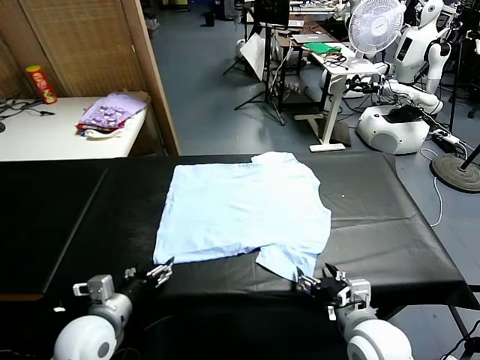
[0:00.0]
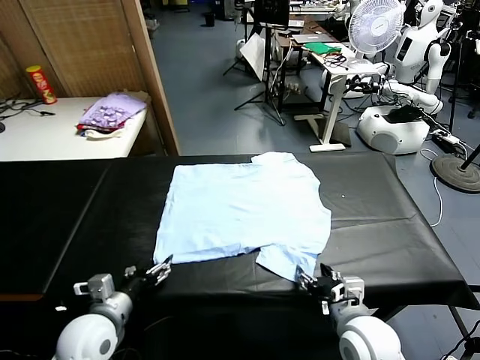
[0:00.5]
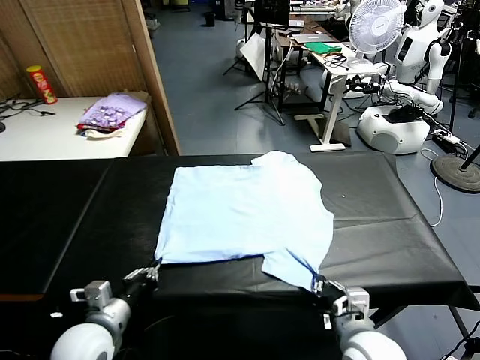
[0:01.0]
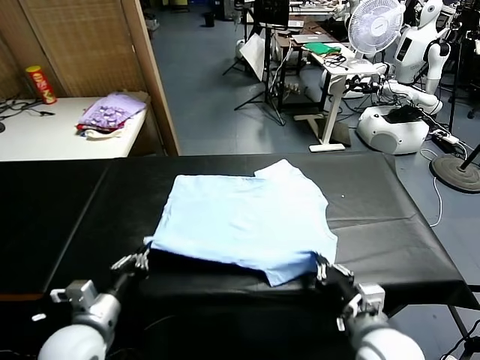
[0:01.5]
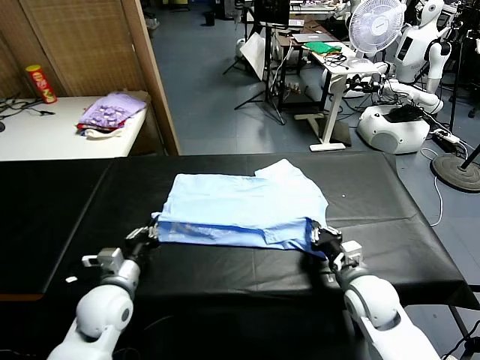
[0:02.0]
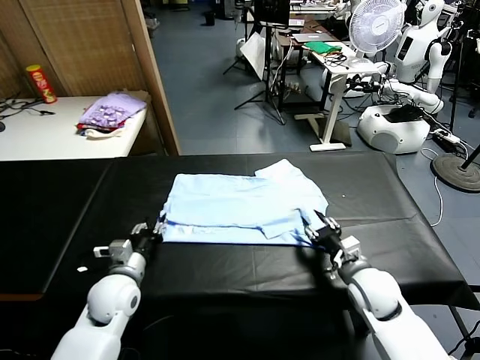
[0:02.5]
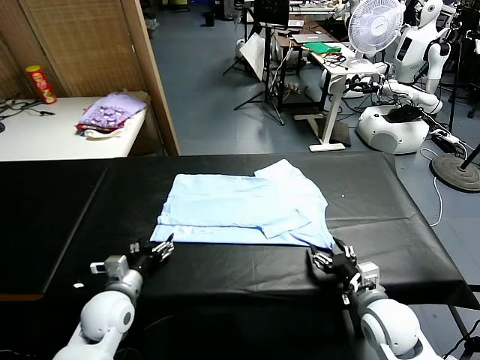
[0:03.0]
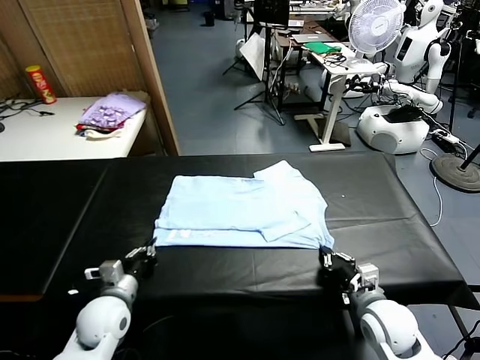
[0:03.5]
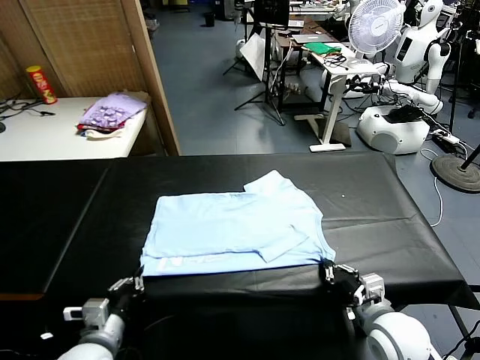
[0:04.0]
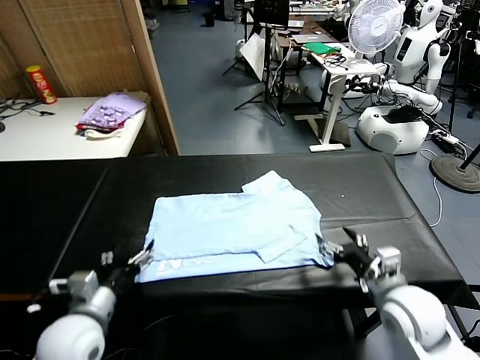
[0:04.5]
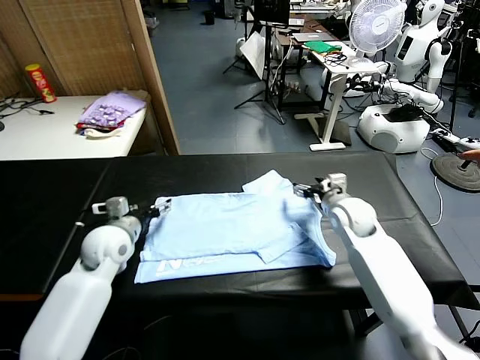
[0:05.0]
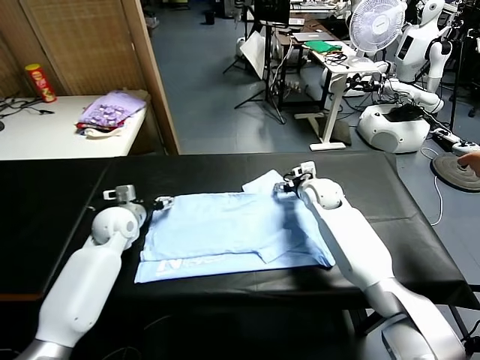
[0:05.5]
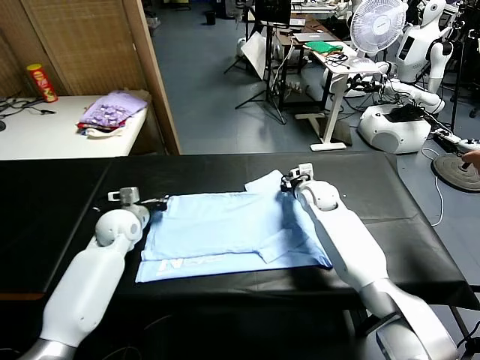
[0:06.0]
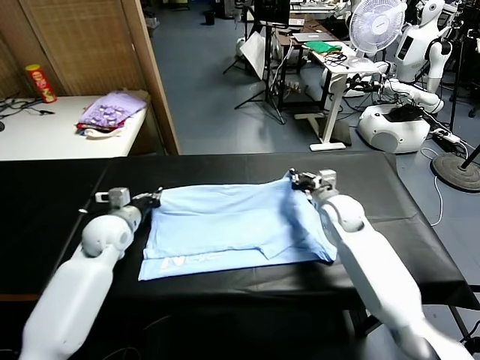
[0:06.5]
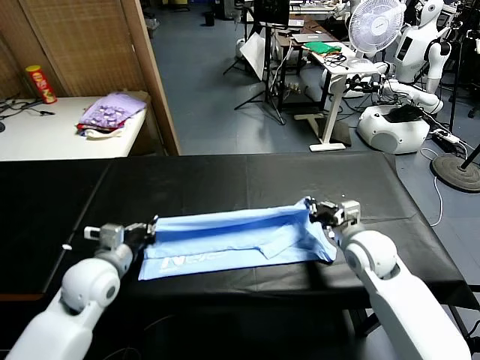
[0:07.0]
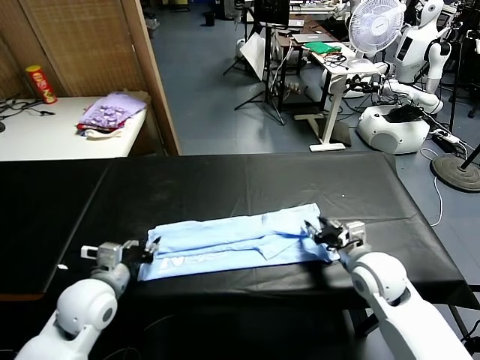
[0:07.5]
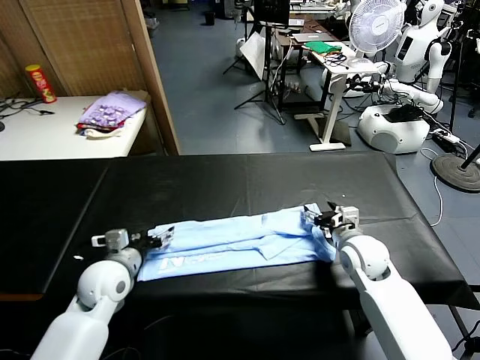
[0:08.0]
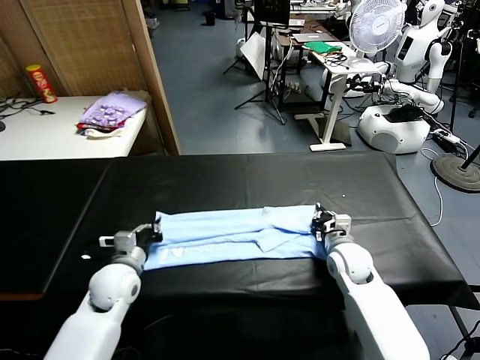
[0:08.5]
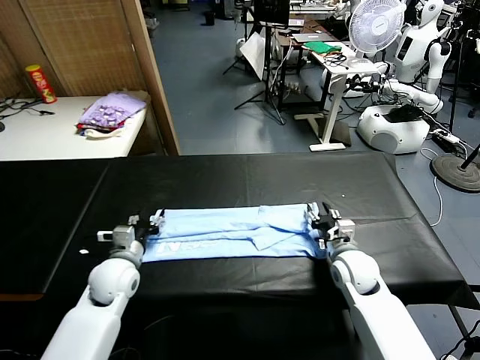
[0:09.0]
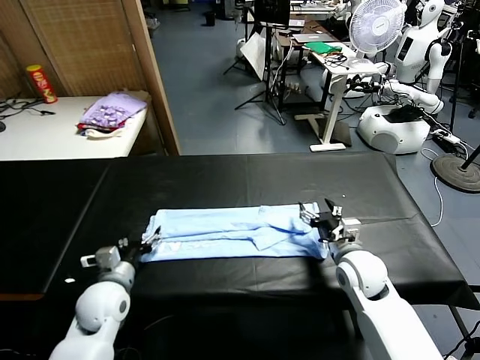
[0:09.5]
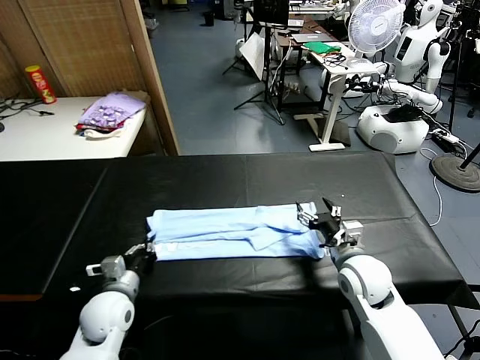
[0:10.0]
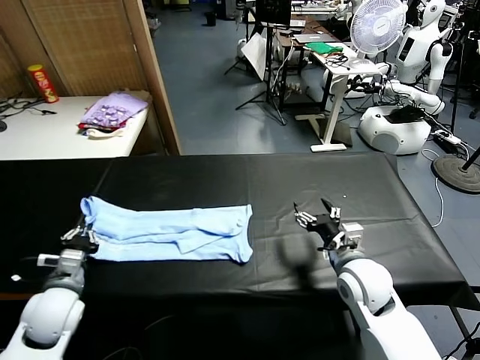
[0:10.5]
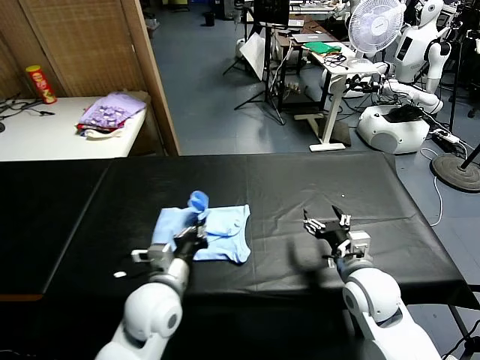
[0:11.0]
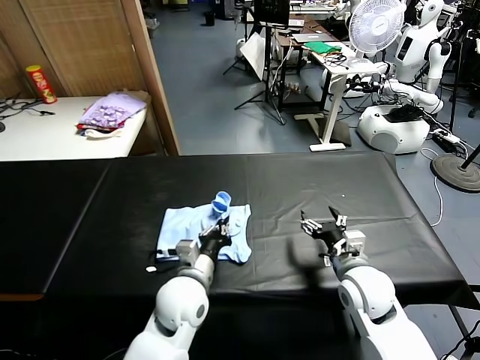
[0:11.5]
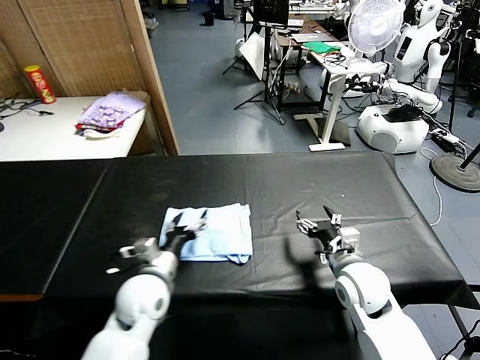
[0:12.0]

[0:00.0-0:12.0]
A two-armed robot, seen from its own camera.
Task of the whole recording: fold and organize the clothes.
Step, 0:00.0 to 0:00.5: use both grippers simultaneously to clamp the lower edge of the clothing fabric.
Step, 0:01.0 to 0:02.0: use both grippers to drag the lower edge of the fabric forward and fold it over the upper edge.
Step, 0:02.5 to 0:04.0: Drag the clothes downward with both gripper.
Step, 0:04.5 to 0:05.5: use both grippers simultaneously to clamp the upper edge of the clothing fabric.
Step, 0:06.5 to 0:07.0: use both grippers to drag the upper edge of the fabric backward and fold it over the lower edge.
Step, 0:07.5 to 0:09.5: use the left gripper to clamp the left edge of the fabric.
Step, 0:10.0 to 0:11.5: use the left gripper to drag the left edge of the fabric to the left and folds it over the right edge.
0:02.0 to 0:04.0: The left gripper is displaced backward by some 15 cm, and opens, then closes again. Meanwhile the right gripper is displaced backward and upward by about 15 cm, and opens its fingers.
0:04.0 to 0:06.0: The two grippers go roughly 30 cm forward. The left gripper opens, then closes again; the right gripper closes.
0:06.0 to 0:08.0: The grippers both shift backward by roughly 15 cm. The left gripper opens. Meanwhile the right gripper opens up.
0:08.0 to 0:10.0: The two grippers go about 5 cm backward. The right gripper opens up. Meanwhile the left gripper closes.
0:10.0 to 0:12.0: The left gripper swings left and right, approximately 25 cm each way, with 2 reversals, and opens up.

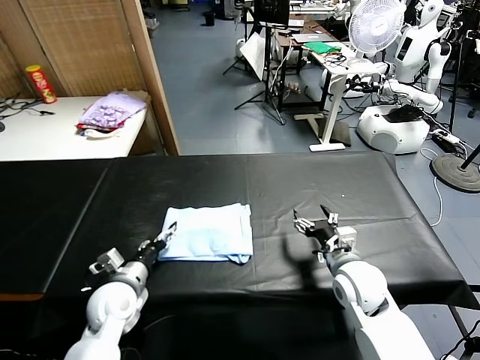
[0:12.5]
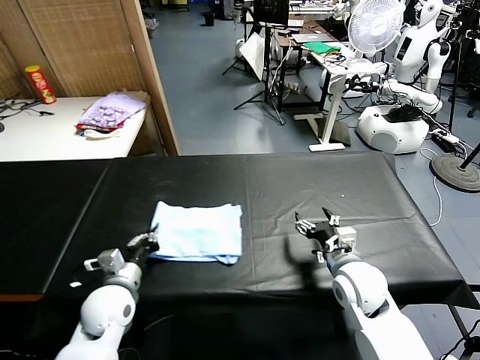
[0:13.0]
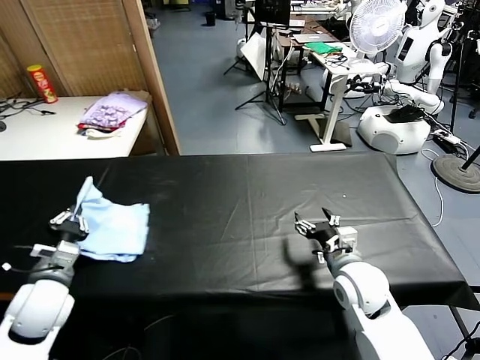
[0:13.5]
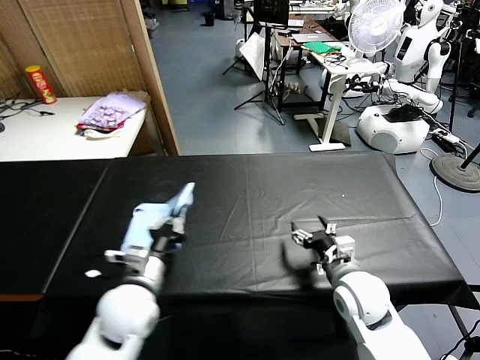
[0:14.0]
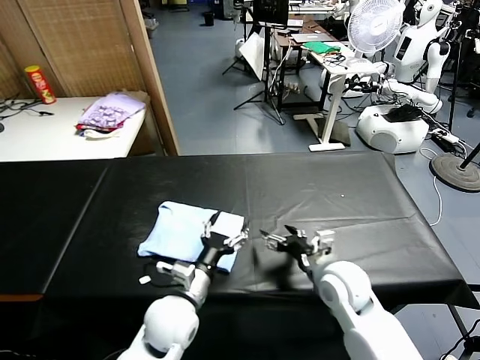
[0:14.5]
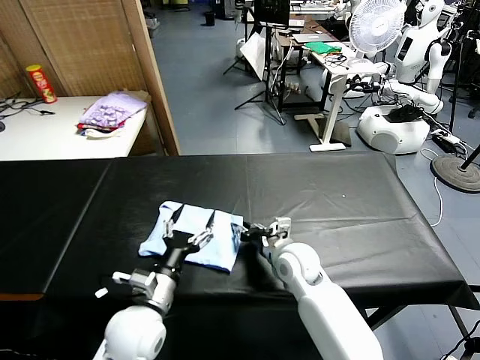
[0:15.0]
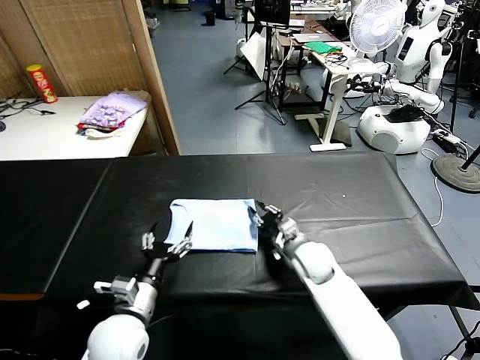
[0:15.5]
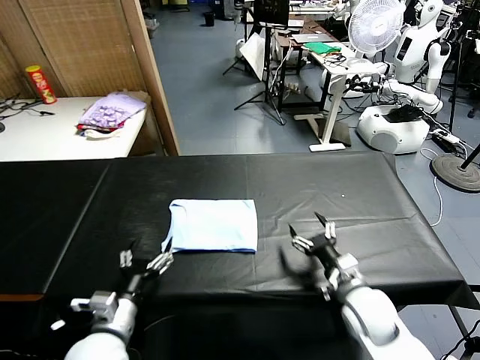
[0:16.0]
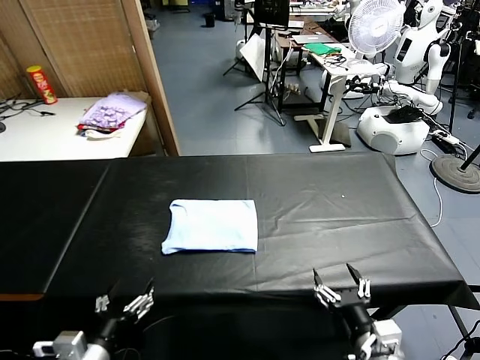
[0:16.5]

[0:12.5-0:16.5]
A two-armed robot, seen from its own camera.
Task of the whole recording: fold and organize the clothes.
Step, 0:12.5 to 0:14.0: Flip the folded clothes over with left gripper.
Step, 0:14.5 to 0:15.5: Drag the clothes to the center of the table.
0:12.5 to 0:14.5: The left gripper shifts some 15 cm to the right, and closes and opens again.
0:14.5 to 0:16.5: The right gripper shifts approximately 20 cm backward, and closes and opens again, while the left gripper goes approximately 20 cm backward and to the left.
